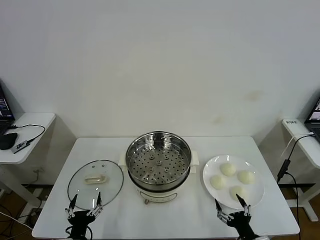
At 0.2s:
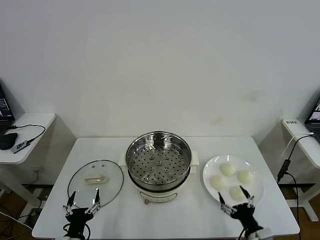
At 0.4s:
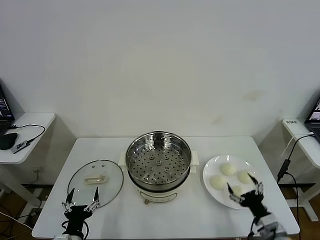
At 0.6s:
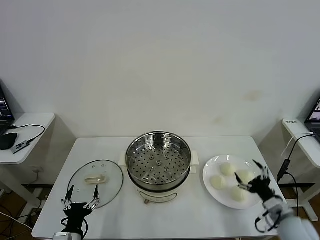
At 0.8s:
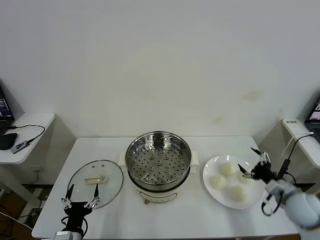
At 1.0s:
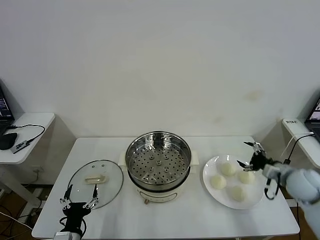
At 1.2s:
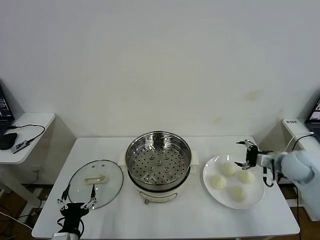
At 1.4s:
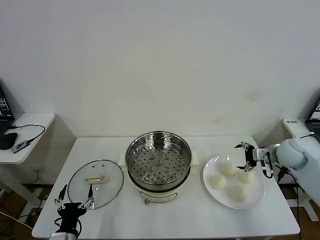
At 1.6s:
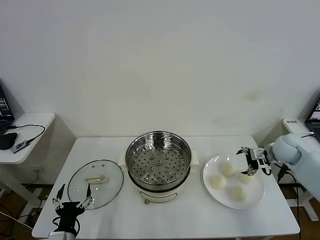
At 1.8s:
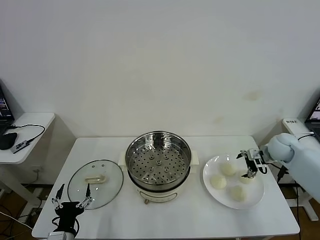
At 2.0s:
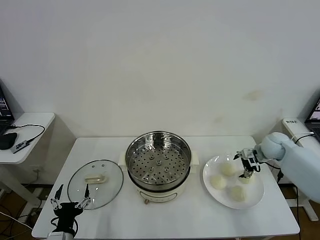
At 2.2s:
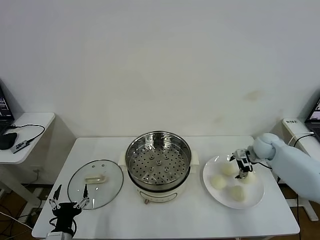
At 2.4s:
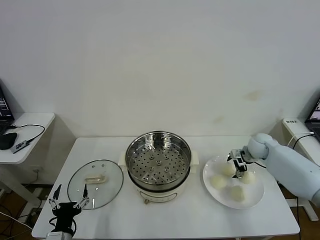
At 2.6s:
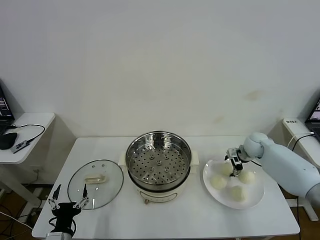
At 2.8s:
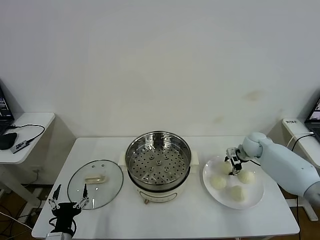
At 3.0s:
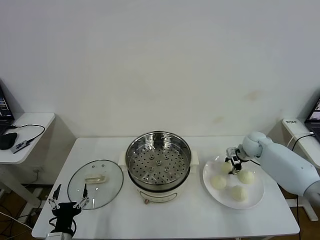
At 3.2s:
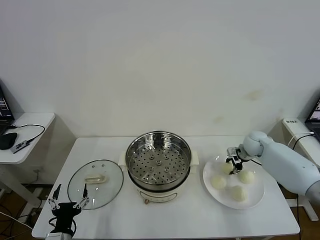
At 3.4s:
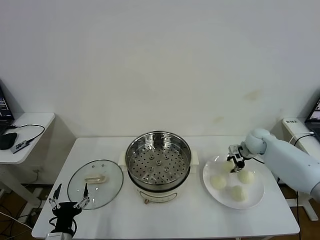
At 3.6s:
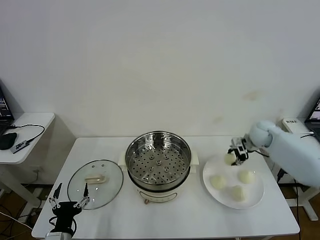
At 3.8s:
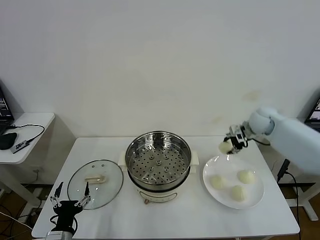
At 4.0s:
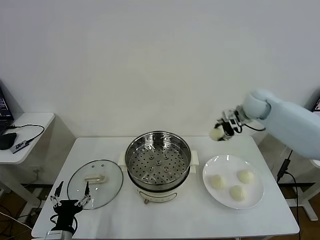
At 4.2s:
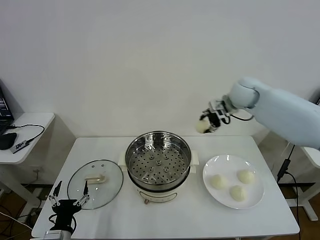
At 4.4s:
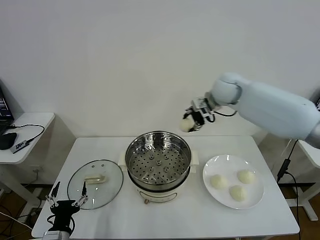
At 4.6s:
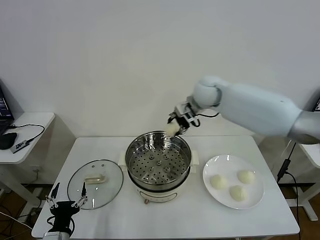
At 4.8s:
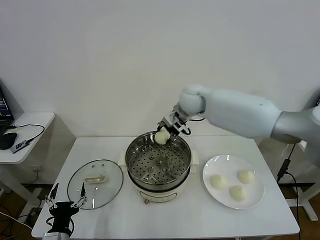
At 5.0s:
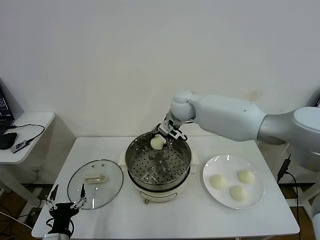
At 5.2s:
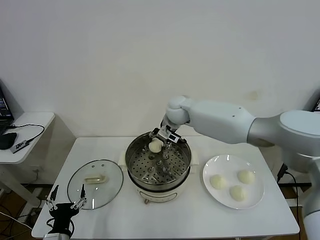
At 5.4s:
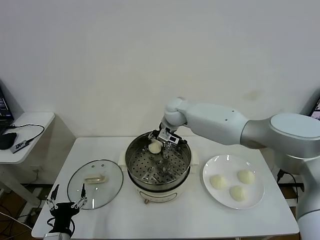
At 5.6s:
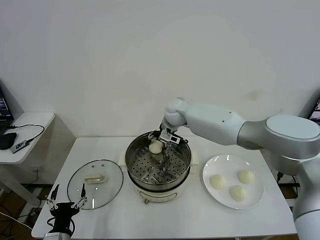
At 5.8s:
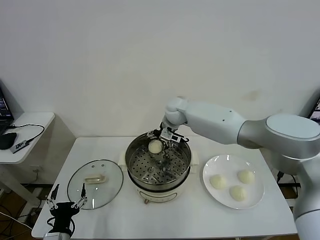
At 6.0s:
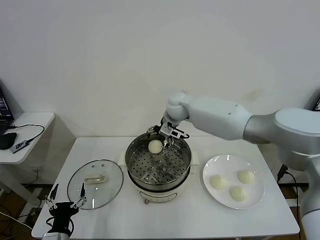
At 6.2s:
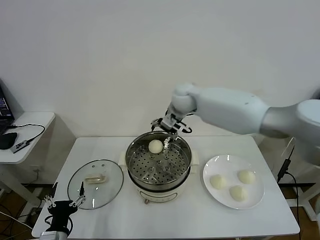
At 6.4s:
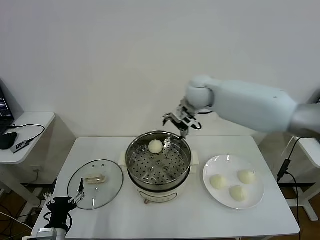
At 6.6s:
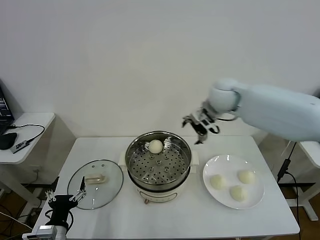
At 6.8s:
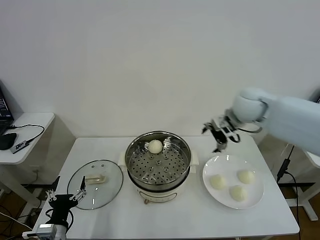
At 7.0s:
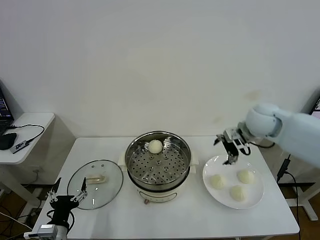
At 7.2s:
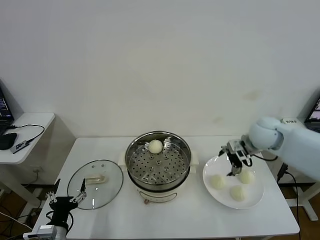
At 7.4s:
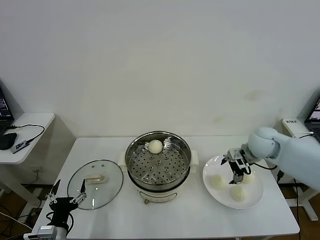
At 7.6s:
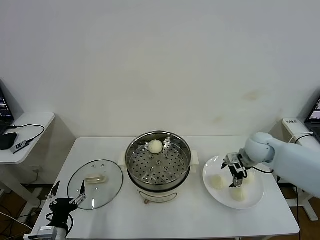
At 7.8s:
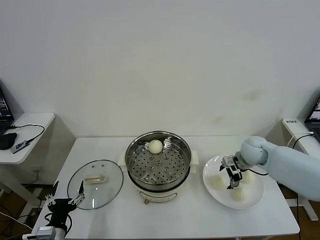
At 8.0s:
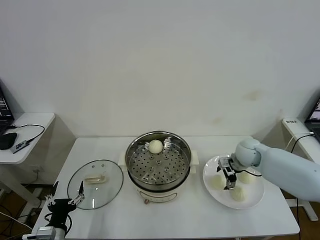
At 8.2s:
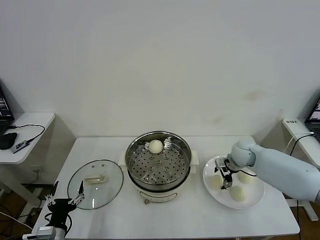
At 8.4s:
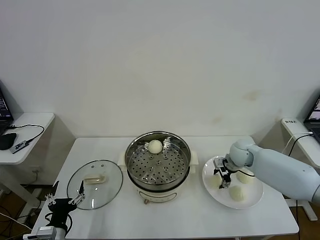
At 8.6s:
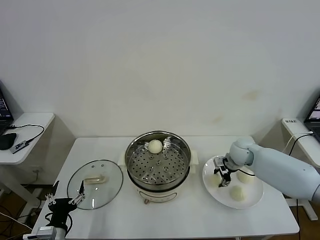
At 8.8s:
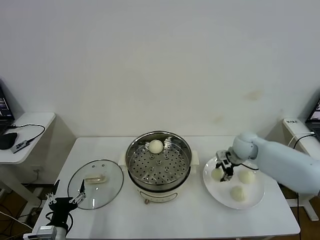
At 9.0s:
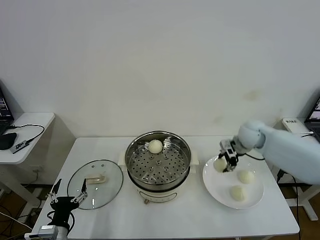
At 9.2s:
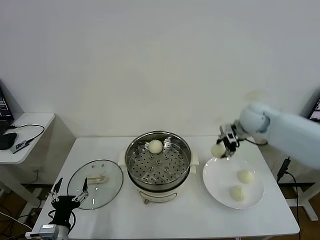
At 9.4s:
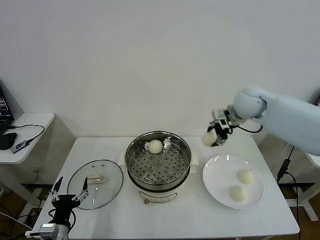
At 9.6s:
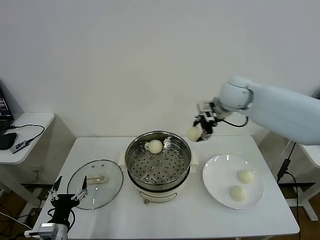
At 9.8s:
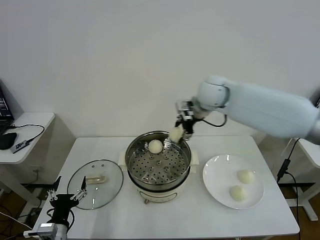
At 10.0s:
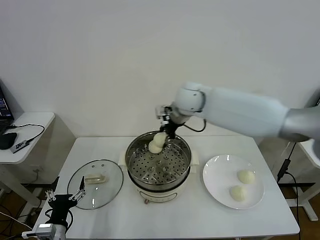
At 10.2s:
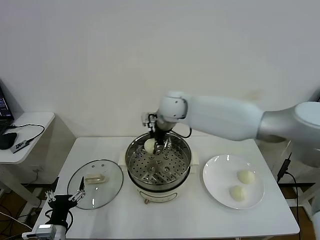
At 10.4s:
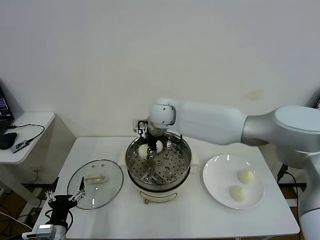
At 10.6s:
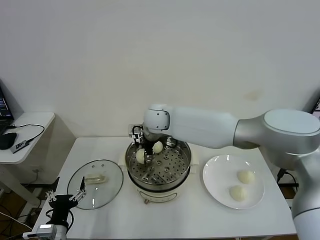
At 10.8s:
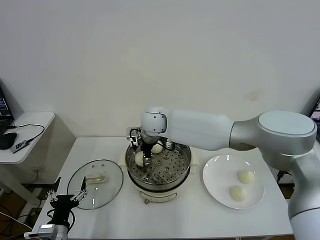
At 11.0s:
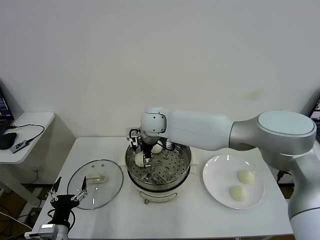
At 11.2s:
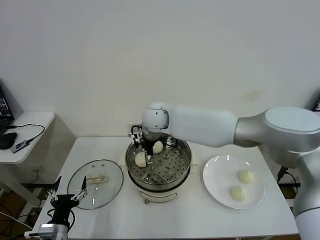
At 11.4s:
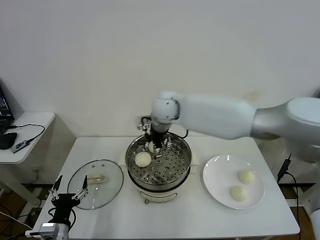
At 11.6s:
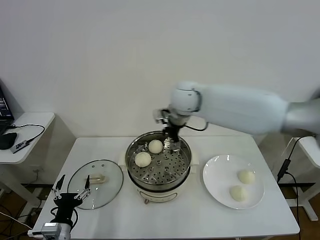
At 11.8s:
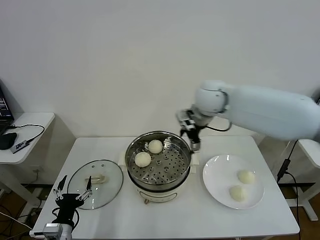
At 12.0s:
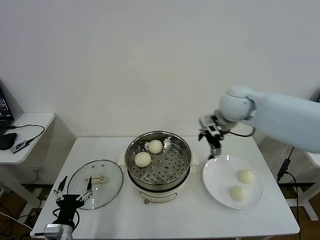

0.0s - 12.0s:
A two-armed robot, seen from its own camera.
Task of the whole recording: take steamed baozi put them in steamer then cover it.
Step, 0.0s - 3.2s: Grasp the baozi in the plate with right gripper.
Step, 3.4s - 5.6s: Place the baozi on the steamer with right gripper.
Step, 5.8s - 8.6s: Grasp the baozi in the plate with right gripper.
Step, 8.8s - 11.0s: Place the baozi on the steamer with right gripper.
1.6s - 3.0s: The right gripper heads forward, downward and to the left, covering about 10 cm, and closes its fingers.
3.0s - 4.4s: The right gripper heads upward and to the left, covering about 30 cm.
4.4s - 6.0s: The right gripper moves to the left and downward, about 15 cm, and opens up.
6.0s - 7.6s: The right gripper goes approximately 30 cm to the right and backward.
7.6s - 9.0s: The right gripper moves approximately 5 cm downward and comes back, and closes up.
9.0s - 10.4s: The right gripper travels to the left by approximately 30 cm.
10.4s - 12.0s: The right gripper goes about 20 cm to the right, and opens up.

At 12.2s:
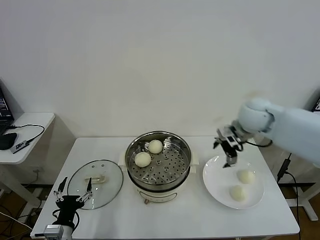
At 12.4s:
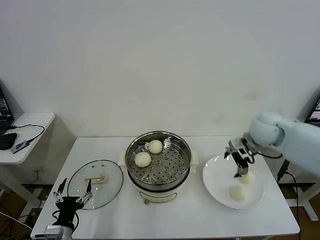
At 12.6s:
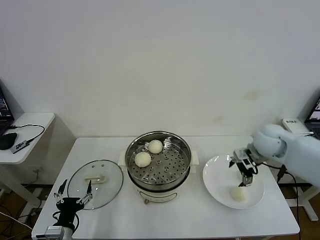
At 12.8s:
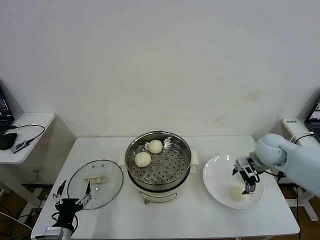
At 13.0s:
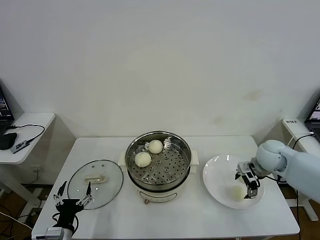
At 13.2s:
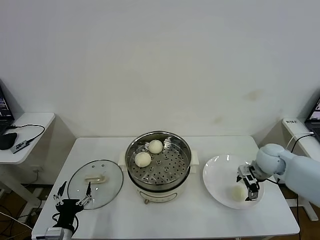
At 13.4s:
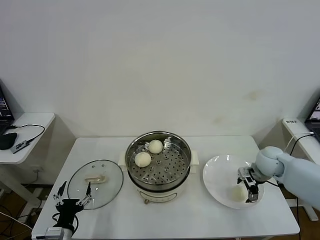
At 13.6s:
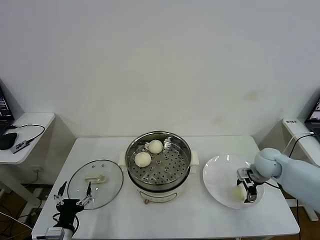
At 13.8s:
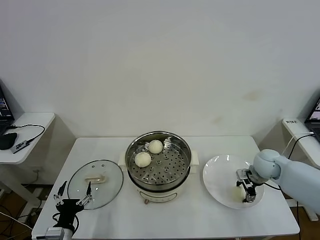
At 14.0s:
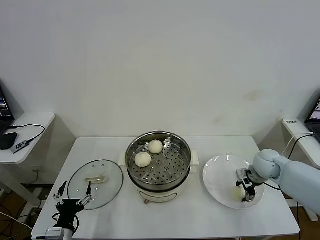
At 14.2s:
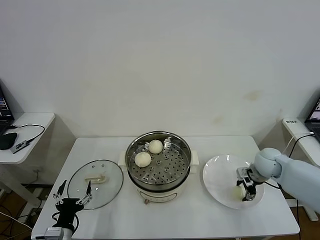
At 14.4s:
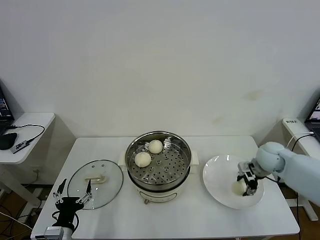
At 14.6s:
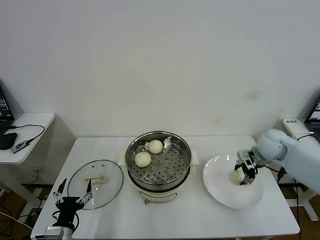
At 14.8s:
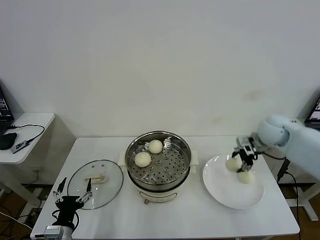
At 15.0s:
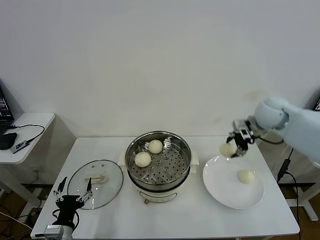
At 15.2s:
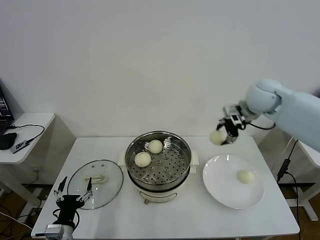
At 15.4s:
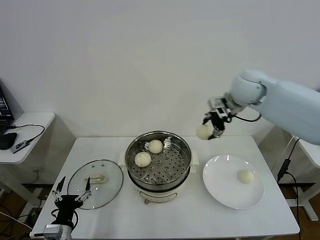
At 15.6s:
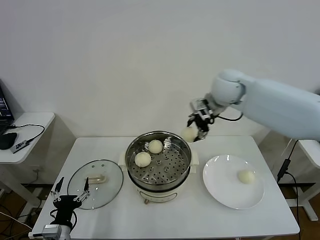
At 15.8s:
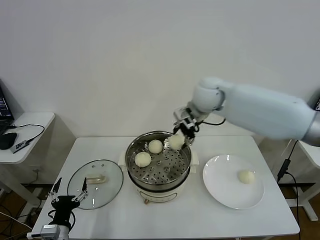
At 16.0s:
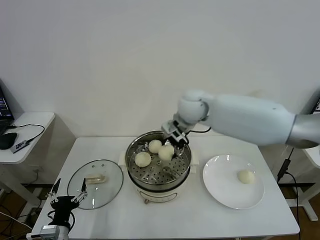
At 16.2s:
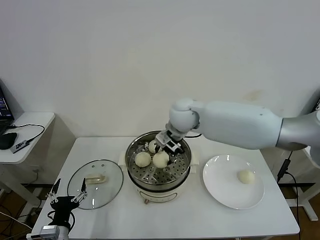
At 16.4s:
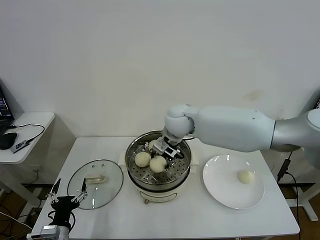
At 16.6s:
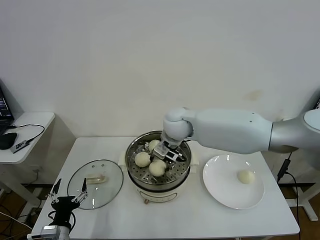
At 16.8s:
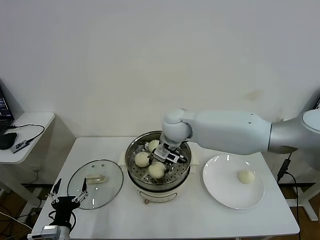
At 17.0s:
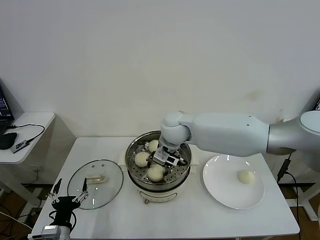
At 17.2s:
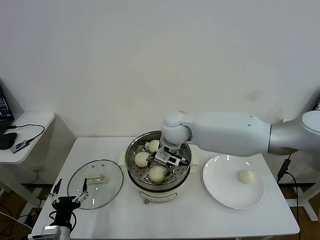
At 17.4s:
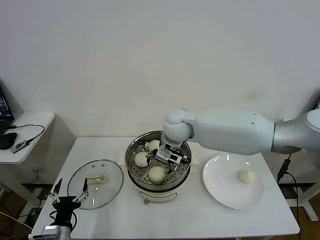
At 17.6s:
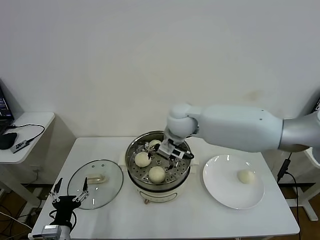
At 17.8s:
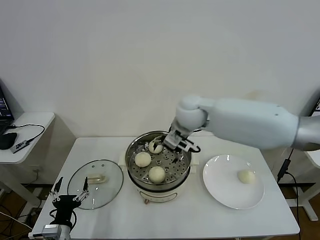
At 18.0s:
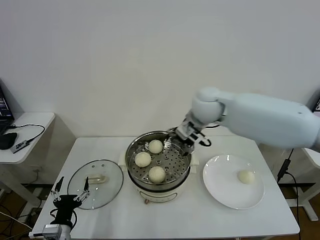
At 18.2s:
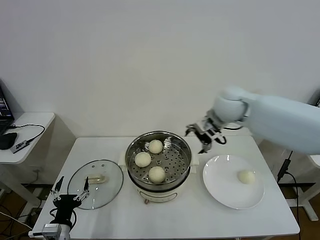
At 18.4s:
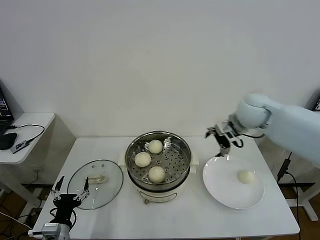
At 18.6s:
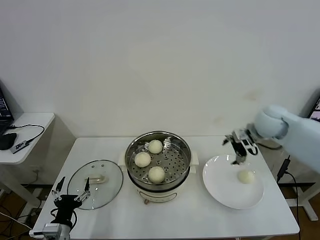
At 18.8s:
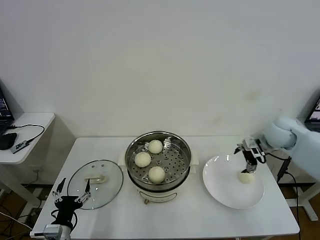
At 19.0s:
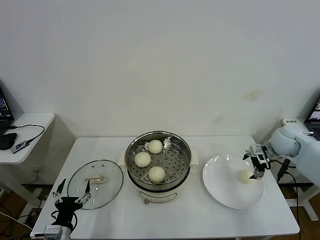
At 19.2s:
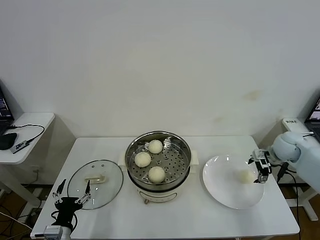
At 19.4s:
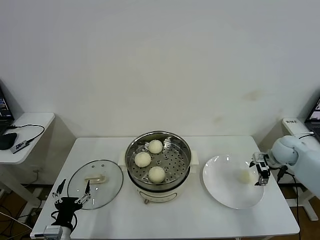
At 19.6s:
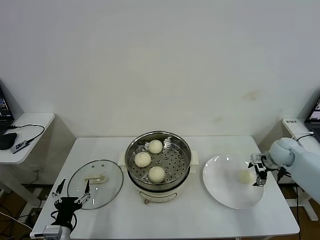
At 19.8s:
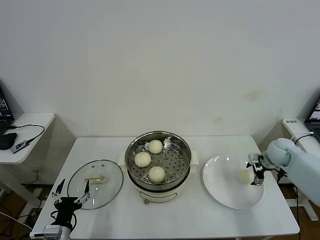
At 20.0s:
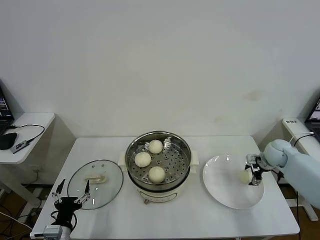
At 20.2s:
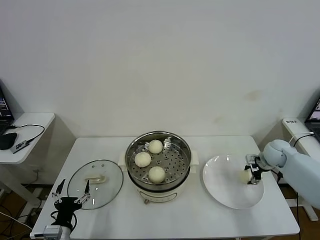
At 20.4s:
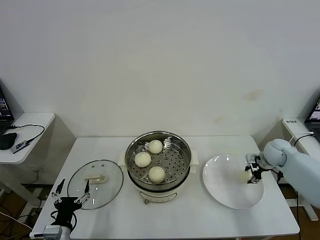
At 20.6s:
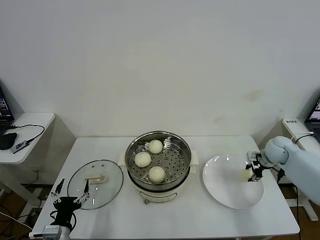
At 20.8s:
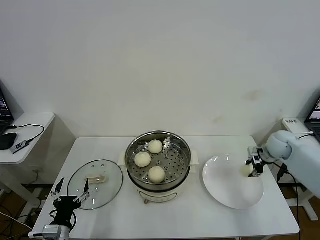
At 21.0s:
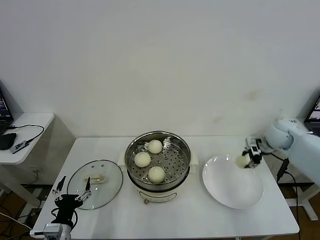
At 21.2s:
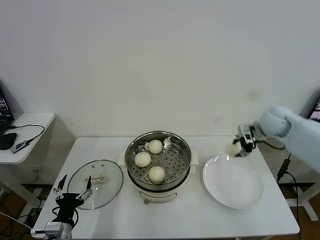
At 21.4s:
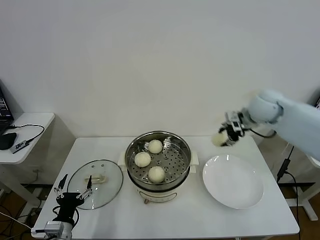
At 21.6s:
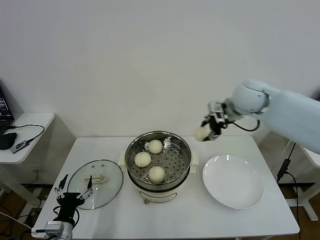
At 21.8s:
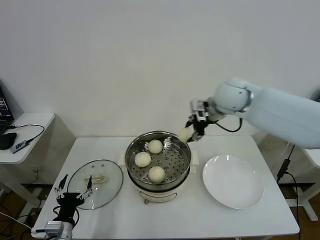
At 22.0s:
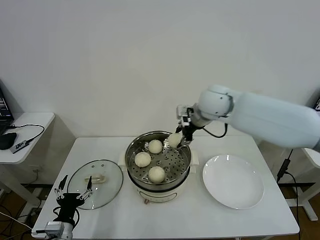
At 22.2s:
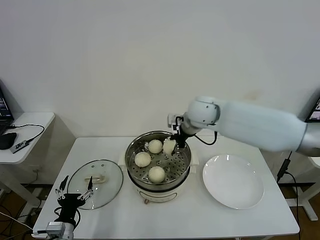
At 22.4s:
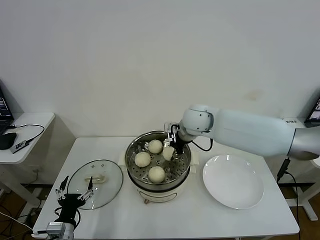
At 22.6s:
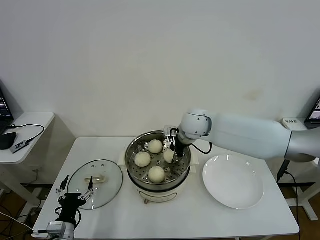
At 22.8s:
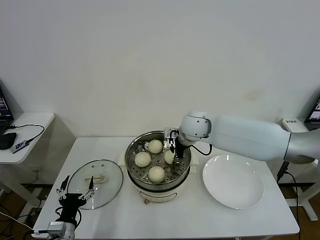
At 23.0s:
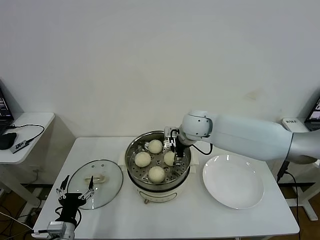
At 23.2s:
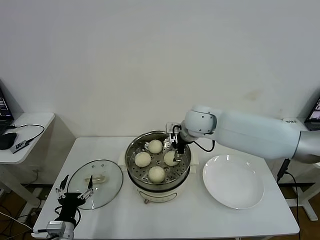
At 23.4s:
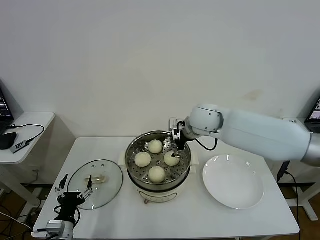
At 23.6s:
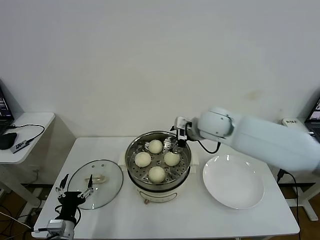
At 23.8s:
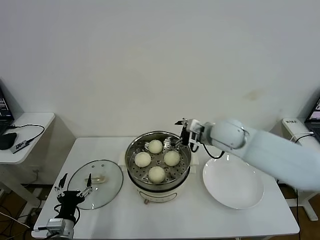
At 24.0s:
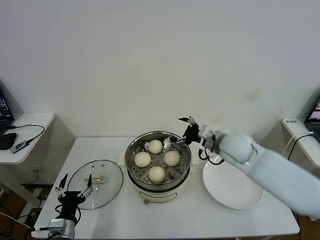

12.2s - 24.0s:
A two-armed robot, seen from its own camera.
Task of the whole recording: take steamed baozi put them in steamer then cover it.
Step, 12.2s - 14.0s: Grasp the baozi in the plate with right gripper.
Step, 14.2s - 17.2s: Place the baozi on the steamer with right gripper.
Step, 17.4s - 20.4s: Grasp the baozi in the plate with right gripper.
Step, 20.6s - 23.0s: Place the baozi on the steamer with right gripper.
12.2s - 13.6s: The right gripper travels downward and to the right by about 20 cm.
13.6s - 15.2s: The right gripper shifts about 20 cm upward, and closes up.
15.2s - 16.6s: The right gripper heads to the left, covering roughly 25 cm.
16.6s - 18.2s: The right gripper goes approximately 15 cm to the right and upward, and opens.
18.2s - 19.6s: The right gripper travels to the right and downward by roughly 30 cm.
19.6s - 21.0s: The right gripper shifts roughly 5 cm upward, and closes up.
21.0s - 22.6s: The right gripper shifts some 30 cm to the left.
22.6s - 24.0s: The right gripper is displaced to the right and backward by about 15 cm, and opens its fingers.
